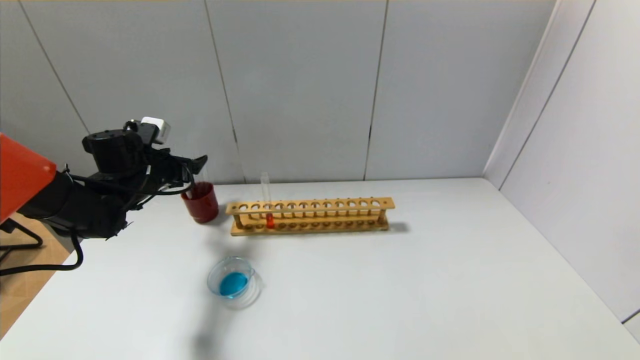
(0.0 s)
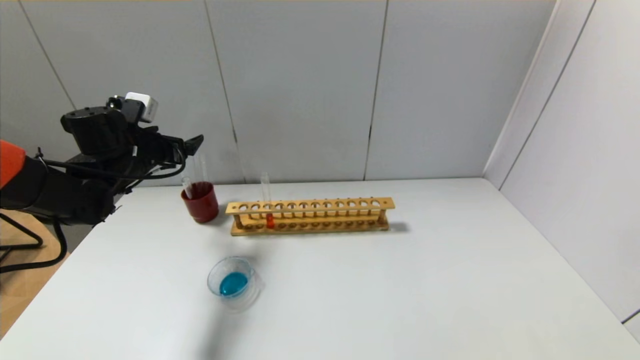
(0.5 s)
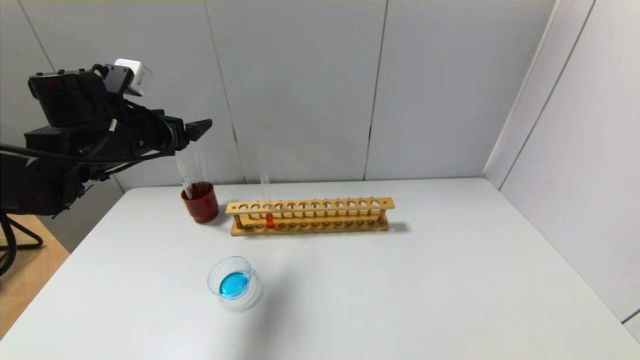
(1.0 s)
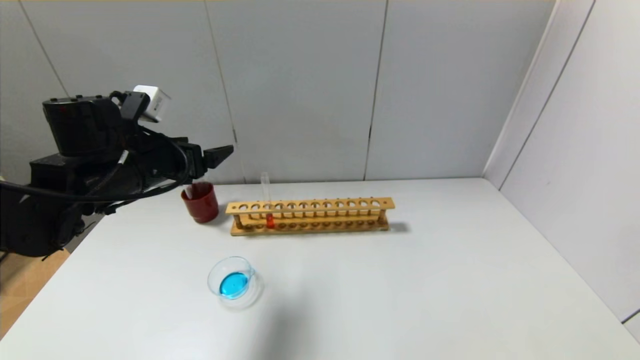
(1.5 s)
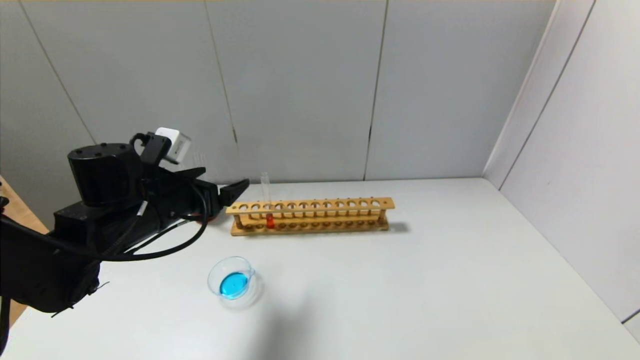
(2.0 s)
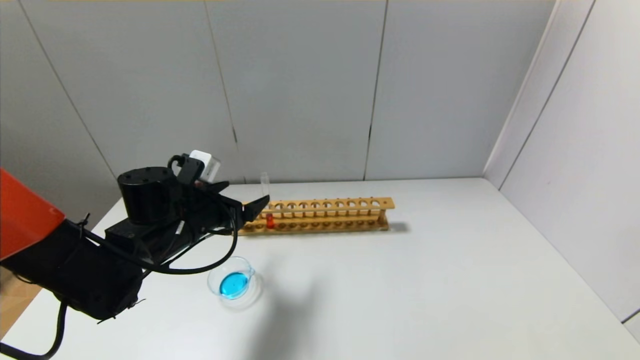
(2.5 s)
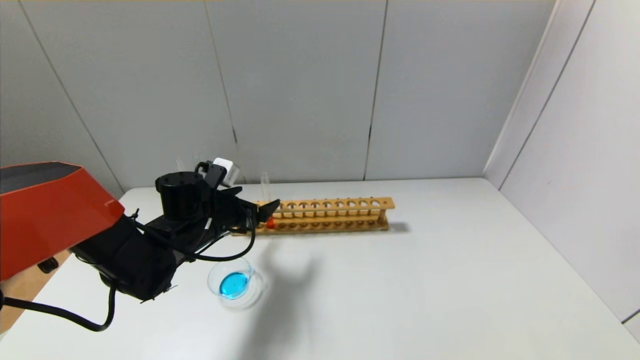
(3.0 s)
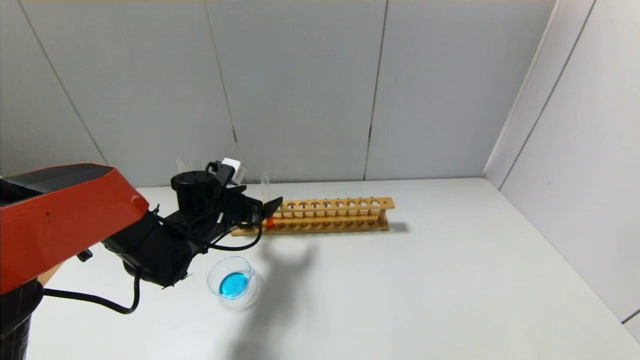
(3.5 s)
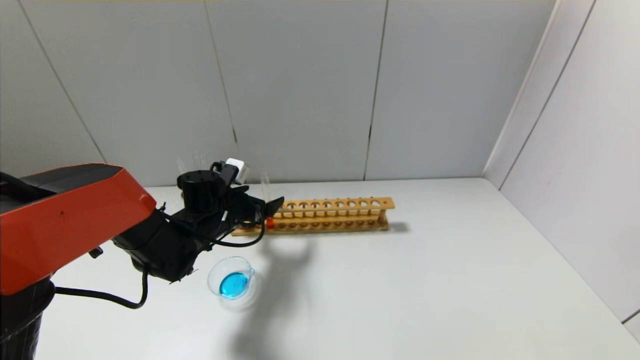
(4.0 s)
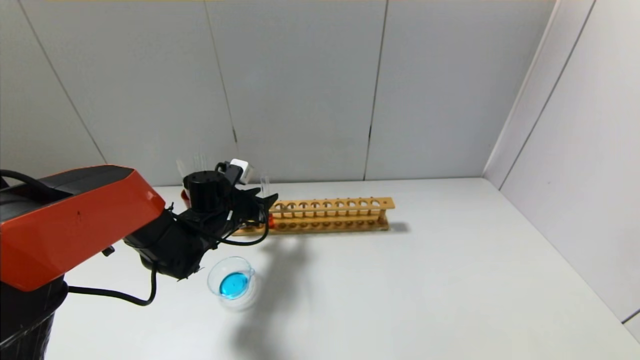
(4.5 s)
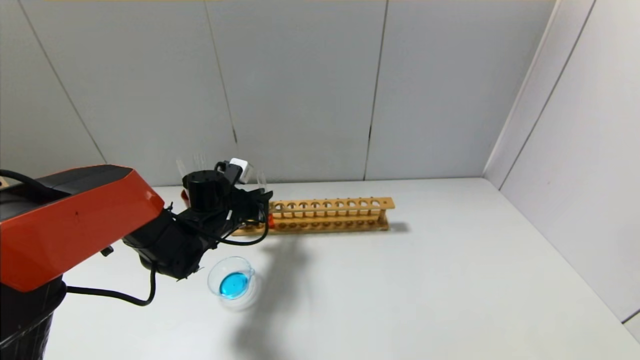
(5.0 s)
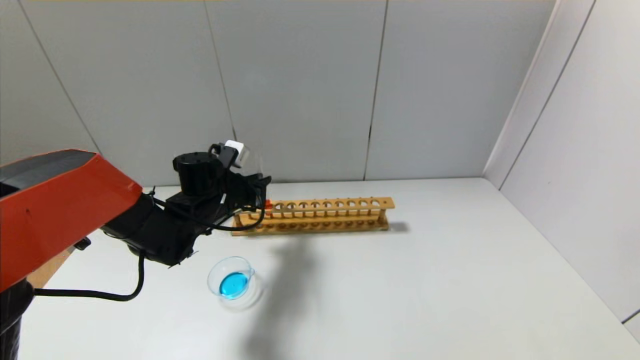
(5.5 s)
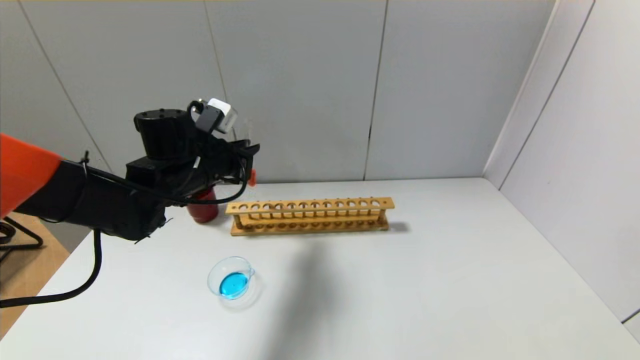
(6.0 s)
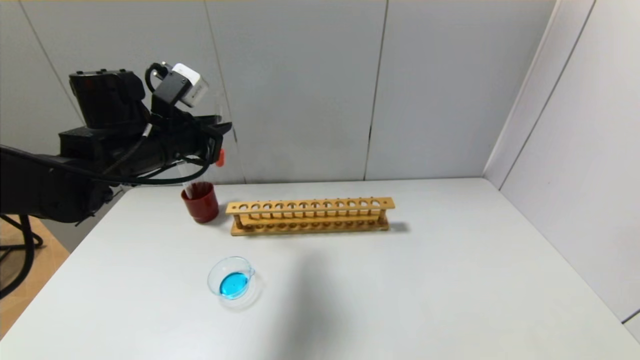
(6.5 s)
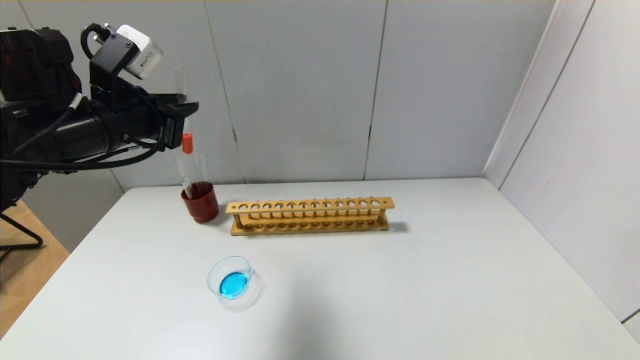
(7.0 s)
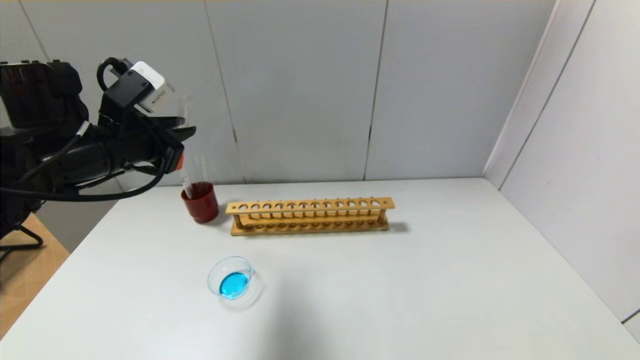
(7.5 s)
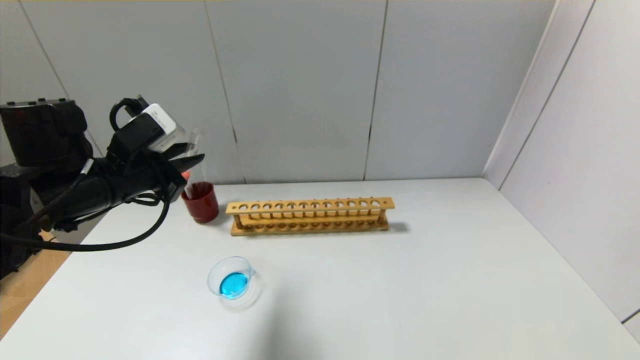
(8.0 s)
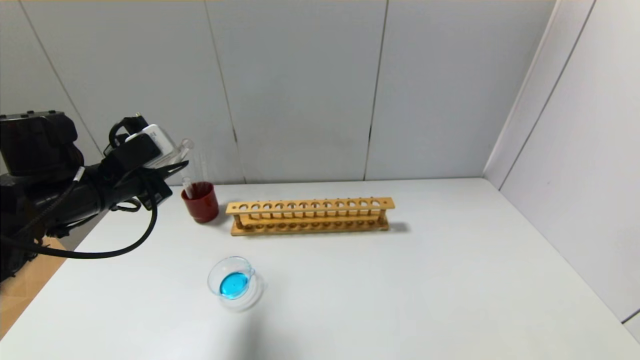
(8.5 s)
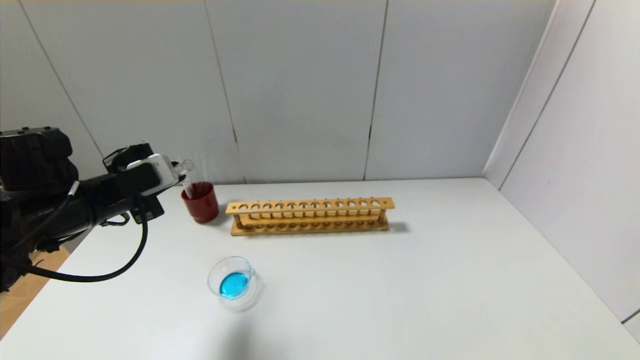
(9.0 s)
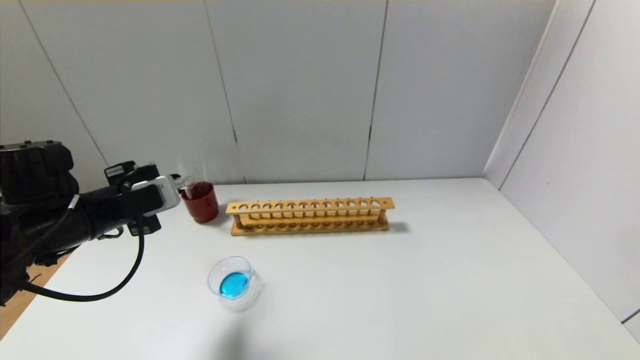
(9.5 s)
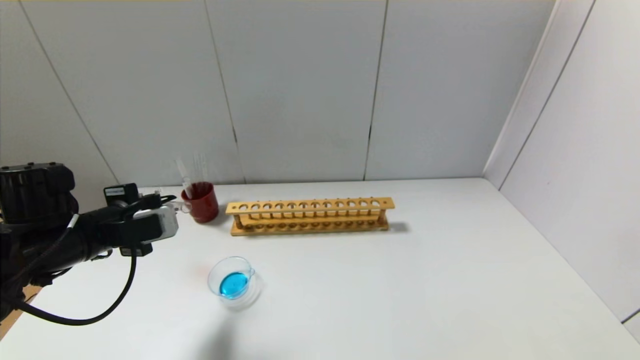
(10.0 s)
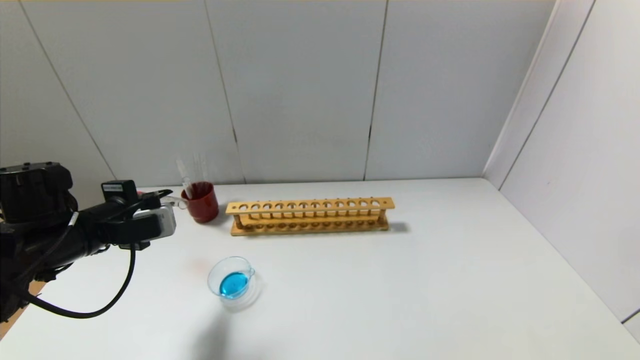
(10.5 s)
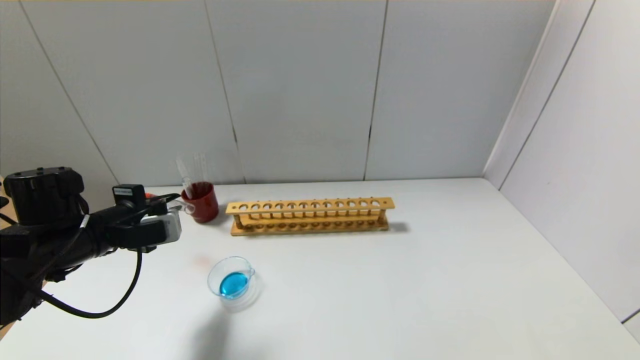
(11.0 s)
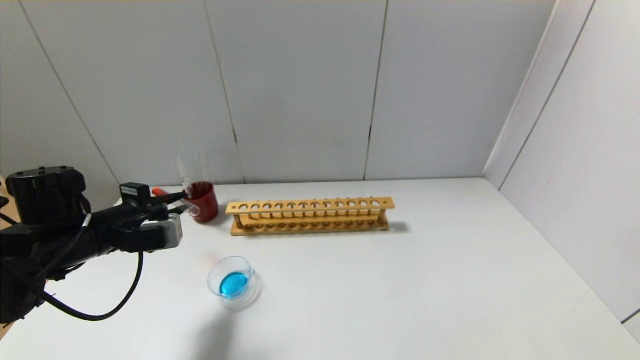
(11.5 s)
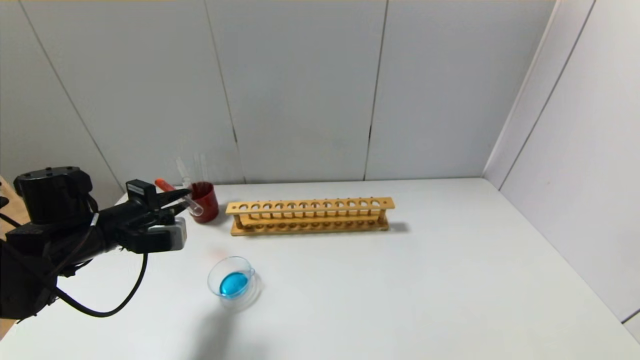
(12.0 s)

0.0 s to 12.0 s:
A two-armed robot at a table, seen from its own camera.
Step, 0.5 to 4.5 s: Grasp the red reagent with the left gripper.
0.0 to 2.0 s: The left gripper heads backward and to the right, covering approximately 15 cm.
2.0 to 4.0 s: The left gripper shifts roughly 15 cm forward and downward.
4.0 to 6.0 s: The left gripper moves upward, about 10 cm, and closes.
6.0 to 8.0 s: The left gripper travels backward and to the left by roughly 10 cm, and moves about 10 cm upward and comes back.
8.0 to 10.0 s: The left gripper travels downward by approximately 5 cm.
10.0 to 12.0 s: There are only small adjustments of the grippers.

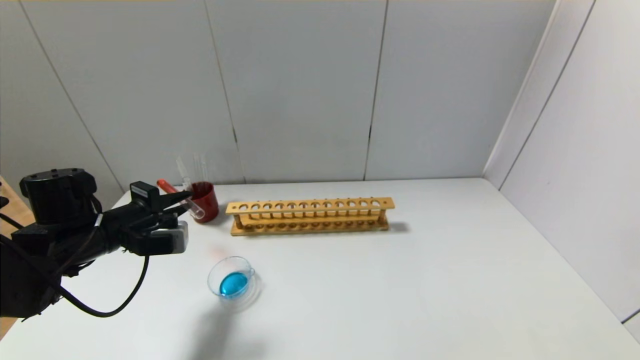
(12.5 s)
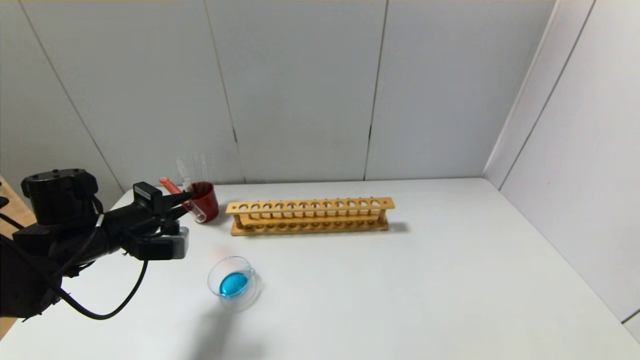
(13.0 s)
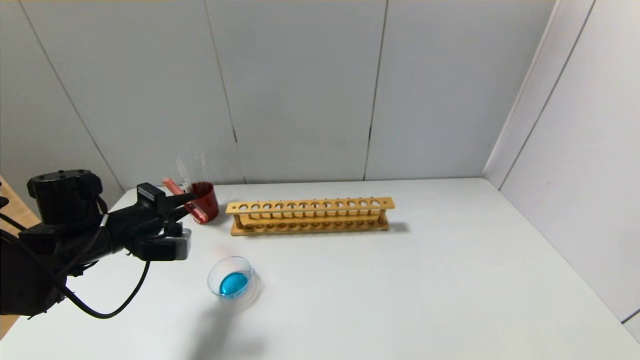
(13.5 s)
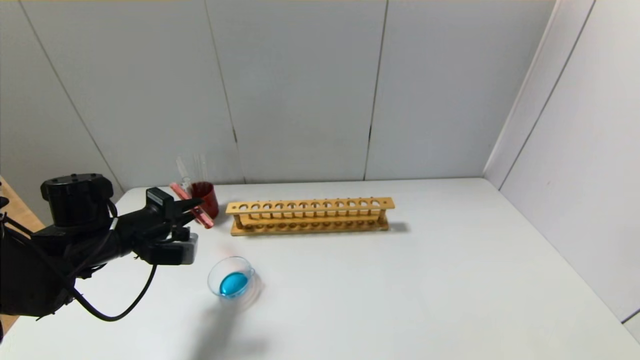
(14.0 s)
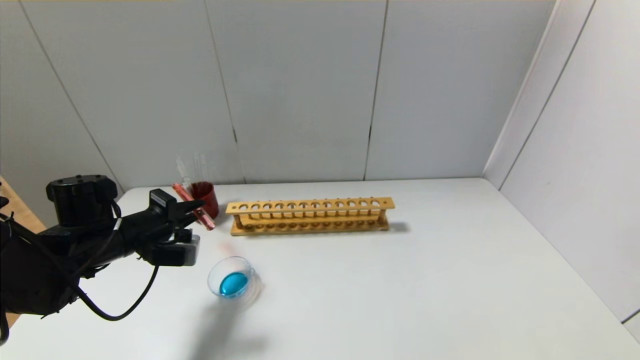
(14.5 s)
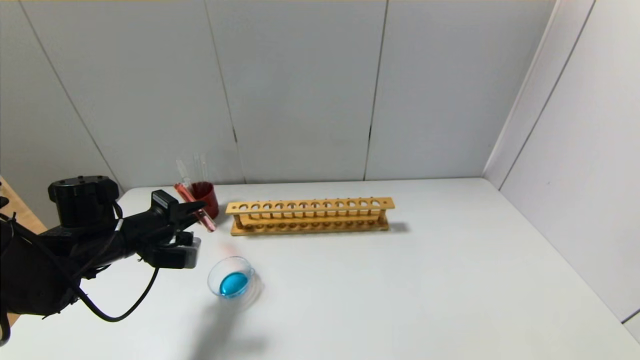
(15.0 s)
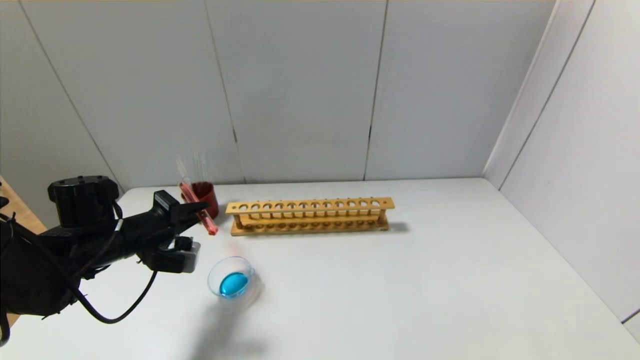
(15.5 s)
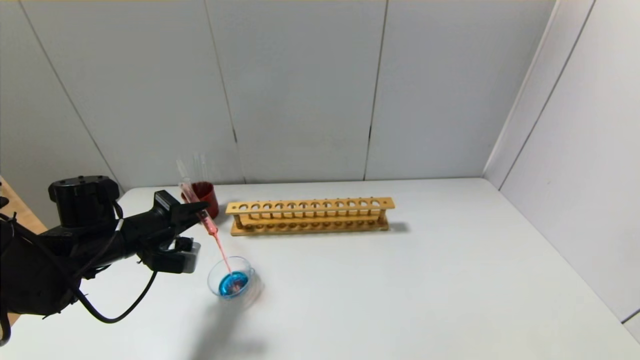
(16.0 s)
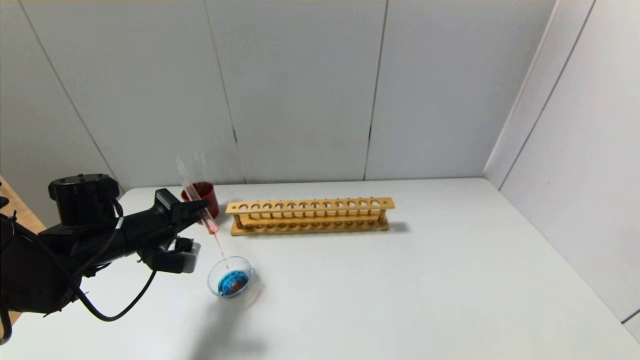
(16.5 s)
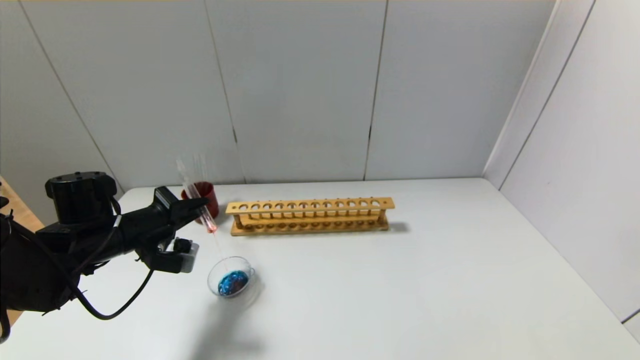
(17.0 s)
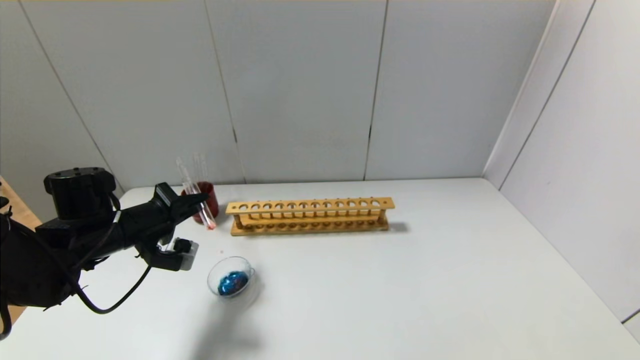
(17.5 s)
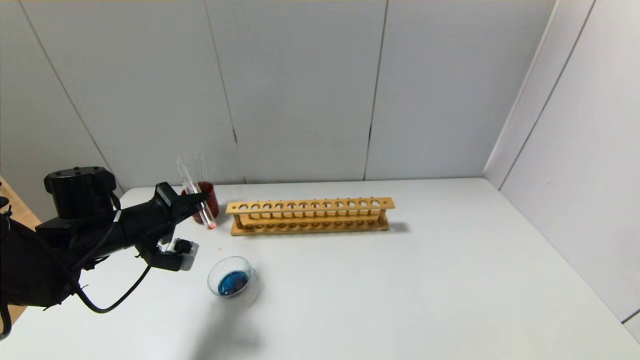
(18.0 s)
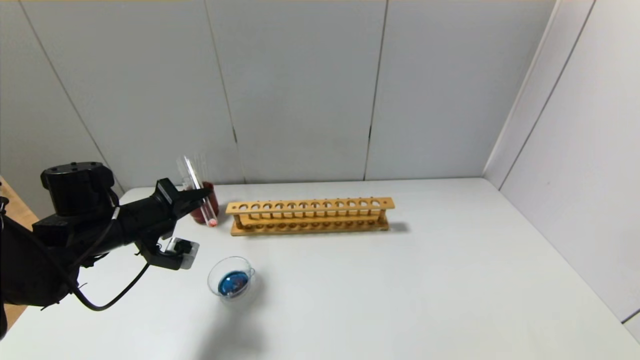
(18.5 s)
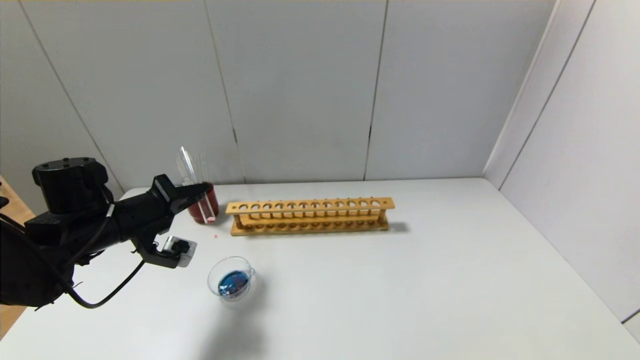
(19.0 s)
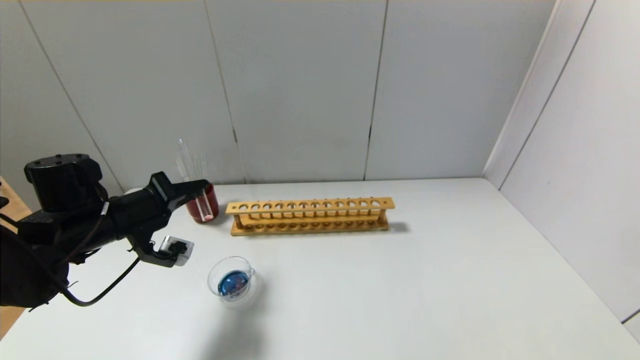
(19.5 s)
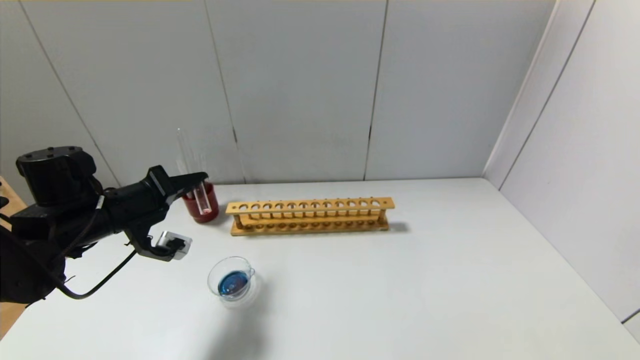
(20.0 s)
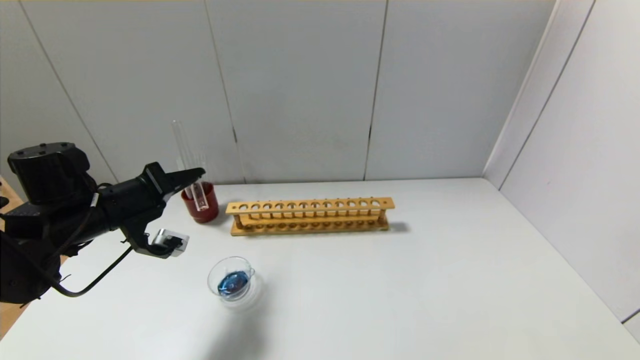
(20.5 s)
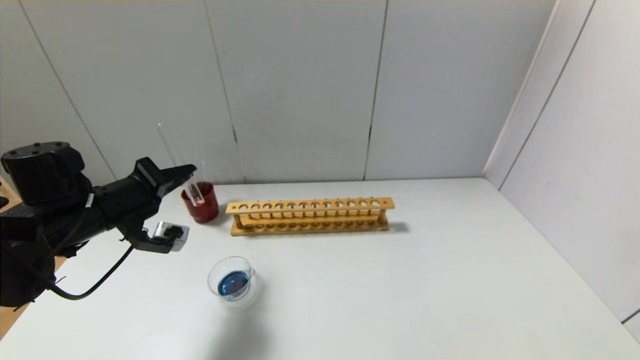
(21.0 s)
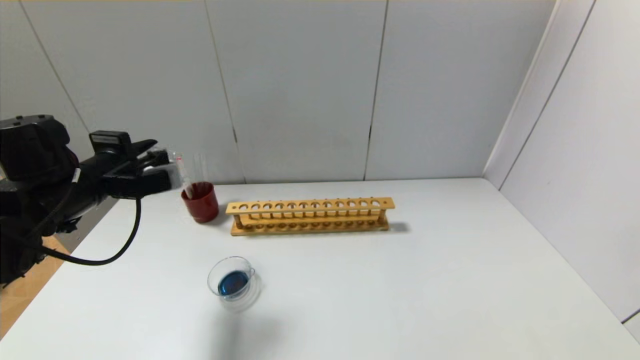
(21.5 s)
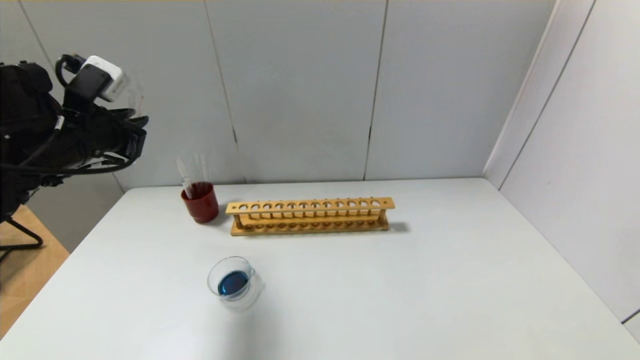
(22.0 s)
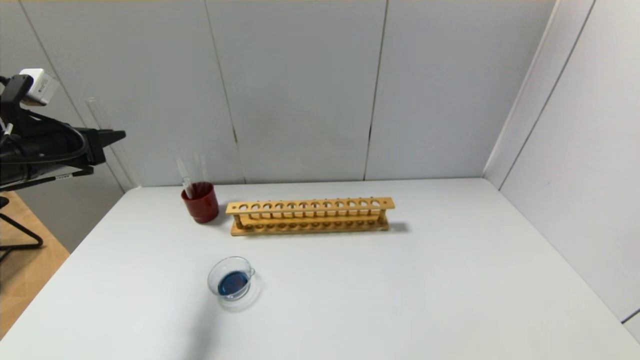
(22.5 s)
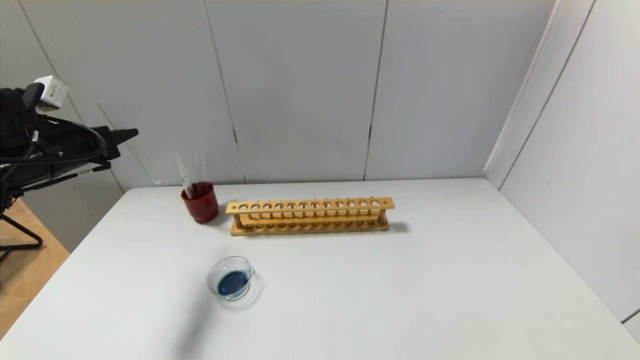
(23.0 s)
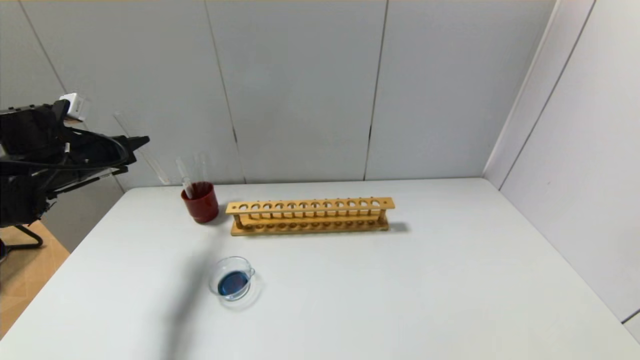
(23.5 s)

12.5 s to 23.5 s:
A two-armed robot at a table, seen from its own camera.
Step, 12.5 to 21.0 s: Pour the red reagent into the graduated cylinder with the left gripper.
12.5 to 16.0 s: There are only small adjustments of the grippers.
16.0 to 18.0 s: The grippers make only small movements.
18.0 to 20.0 s: There are only small adjustments of the grippers.
21.5 to 23.5 s: The left gripper shifts about 10 cm to the left and forward.
